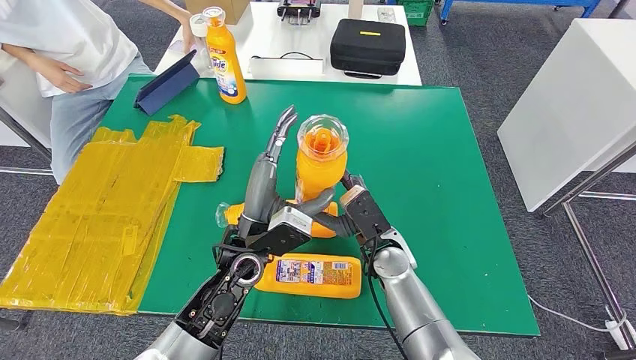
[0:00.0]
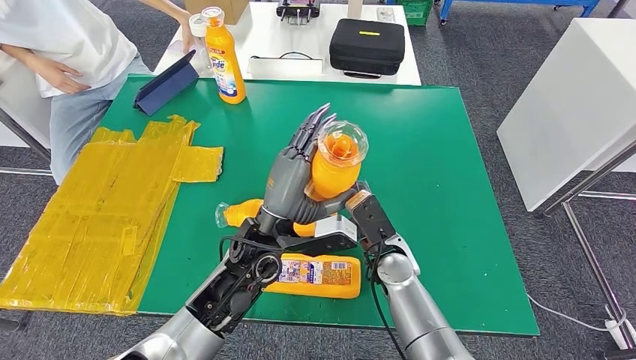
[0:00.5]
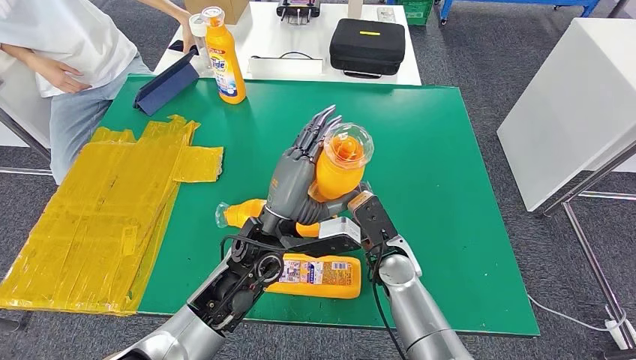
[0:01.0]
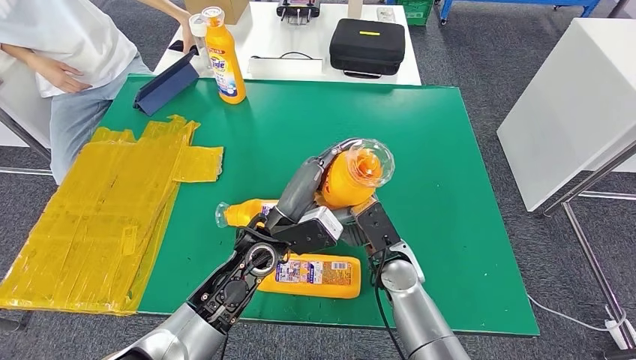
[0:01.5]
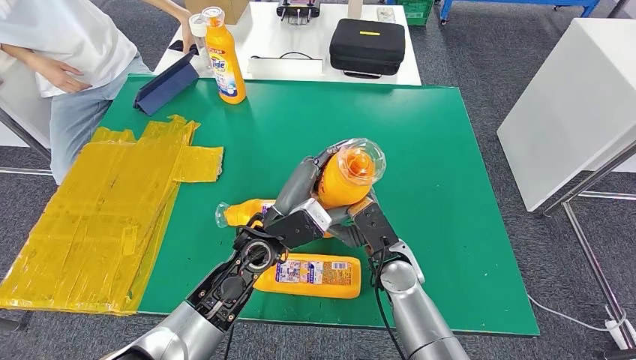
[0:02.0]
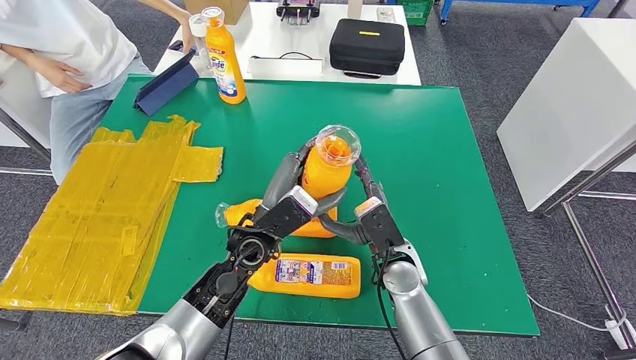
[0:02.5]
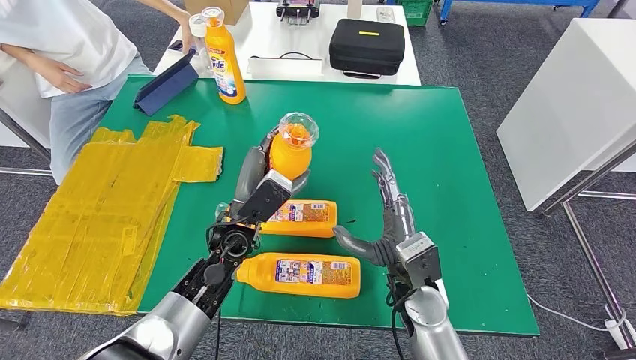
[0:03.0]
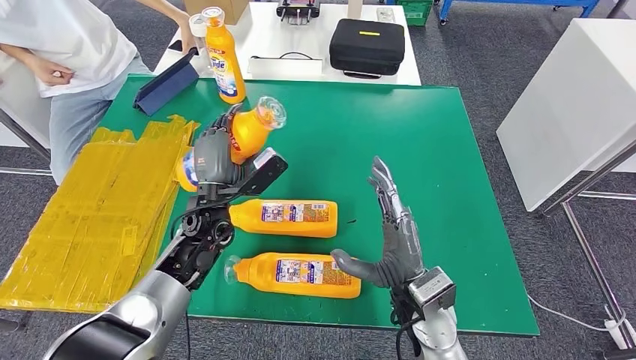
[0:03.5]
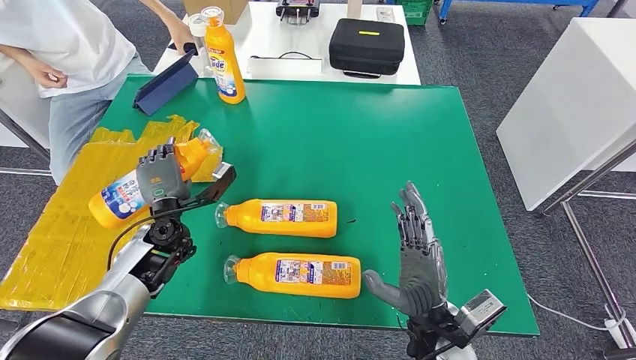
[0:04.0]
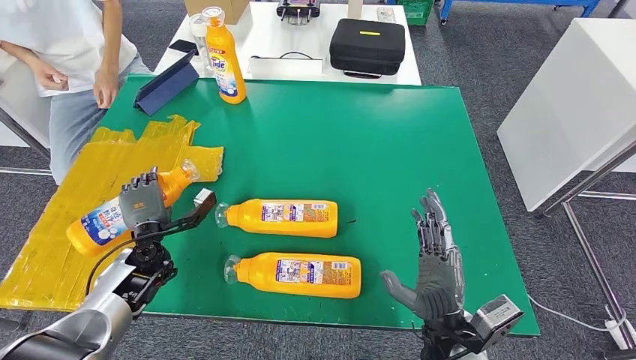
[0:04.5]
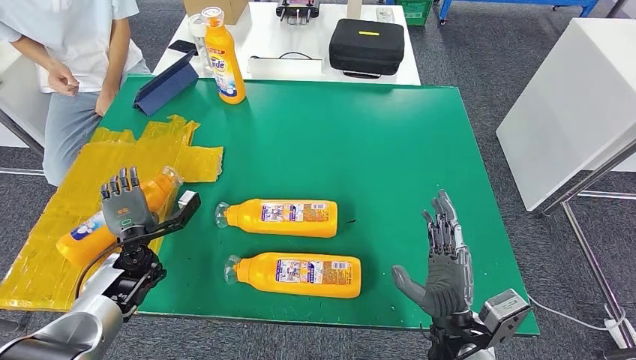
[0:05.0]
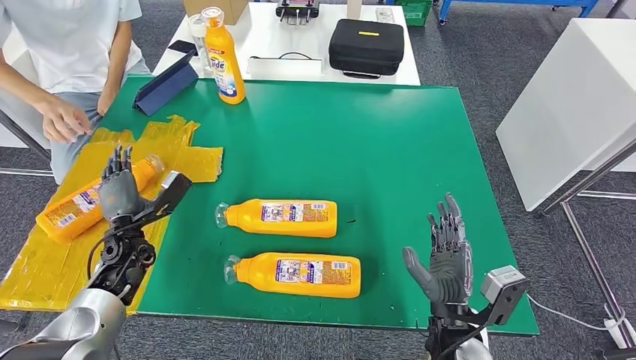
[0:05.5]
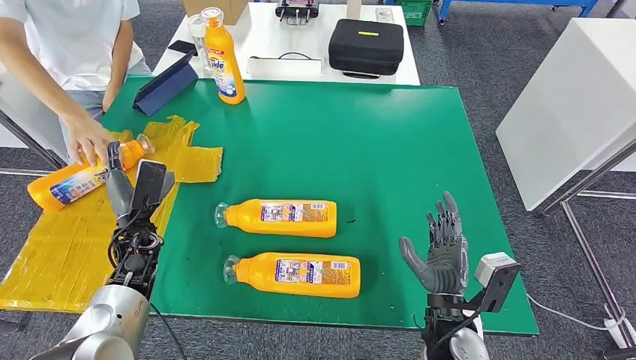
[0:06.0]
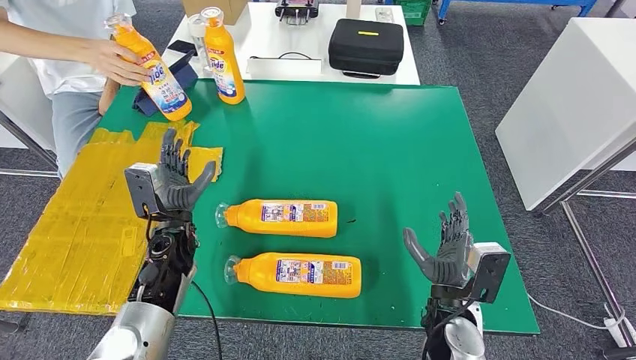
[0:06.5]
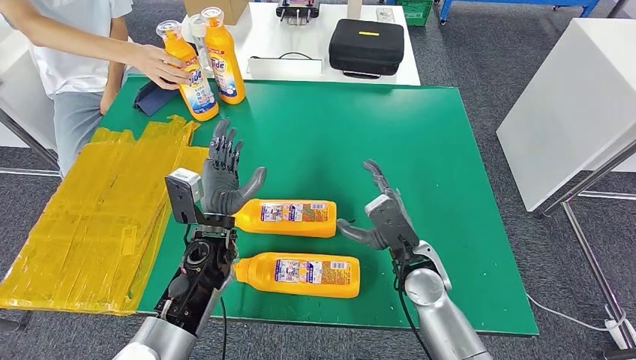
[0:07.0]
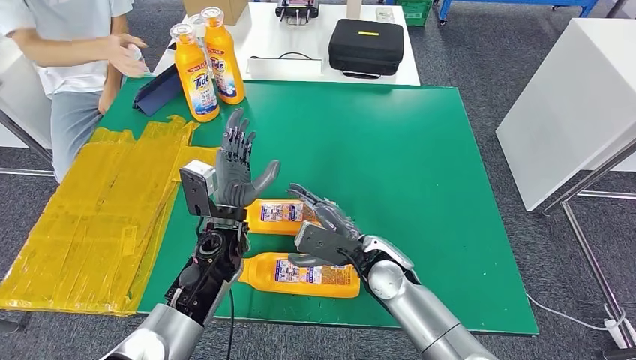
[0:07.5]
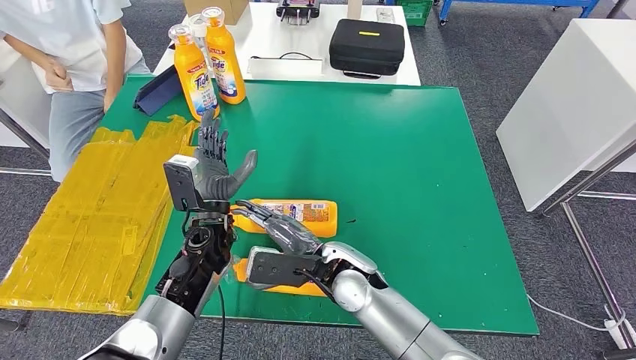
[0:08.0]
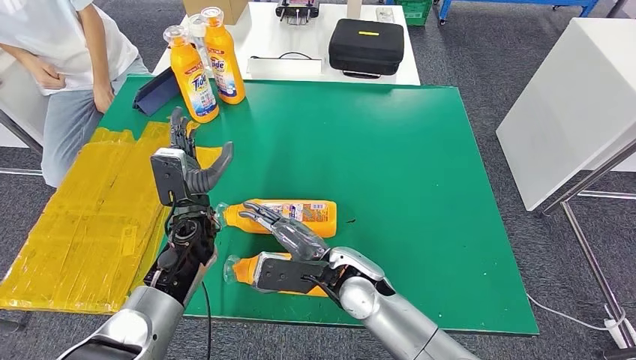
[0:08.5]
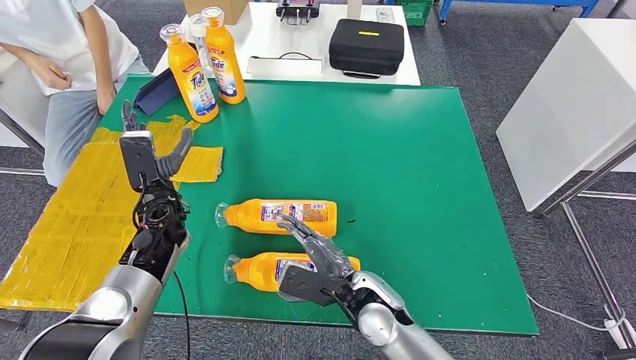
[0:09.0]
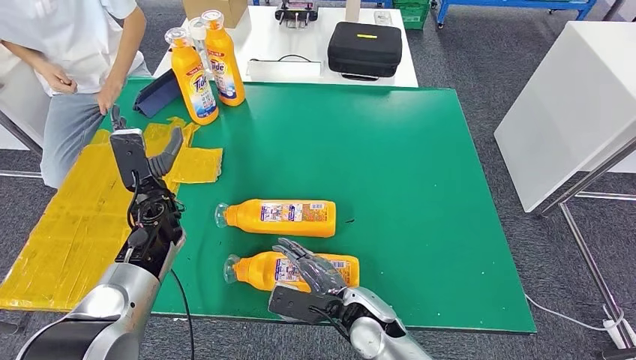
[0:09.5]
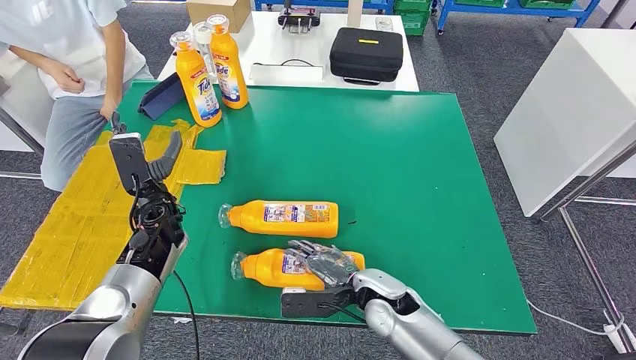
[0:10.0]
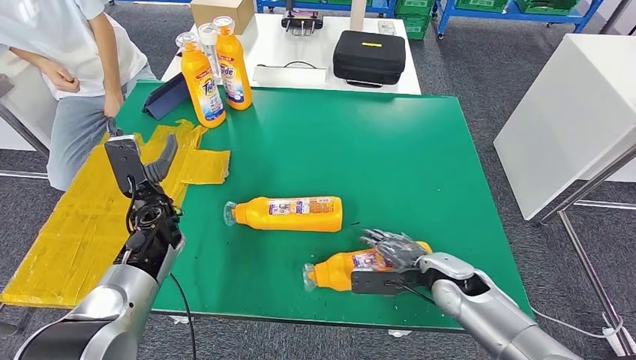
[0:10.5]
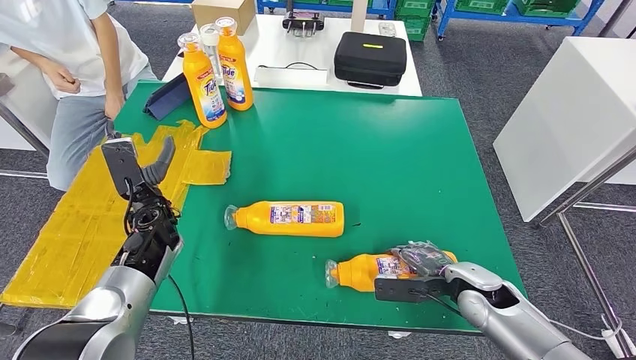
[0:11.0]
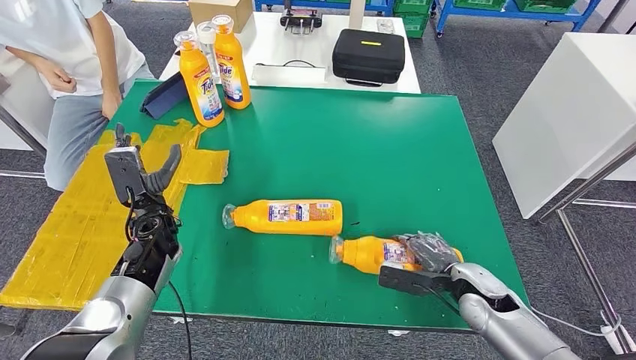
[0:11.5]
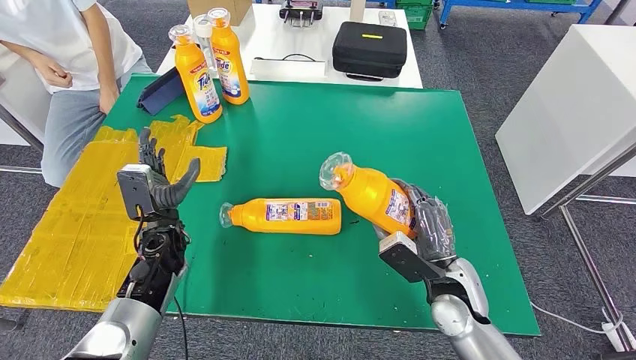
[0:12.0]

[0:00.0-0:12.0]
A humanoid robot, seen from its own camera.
Step, 0:00.0 to 0:05.5: Flip the bottle to face forward.

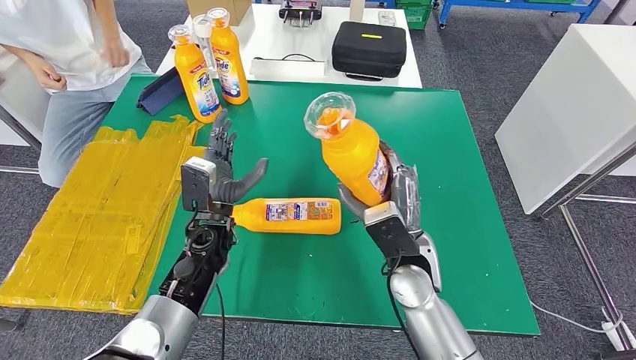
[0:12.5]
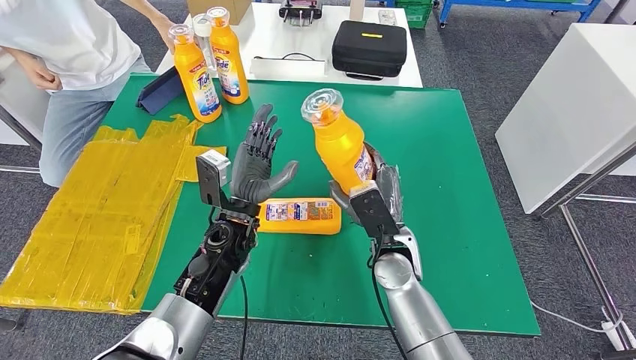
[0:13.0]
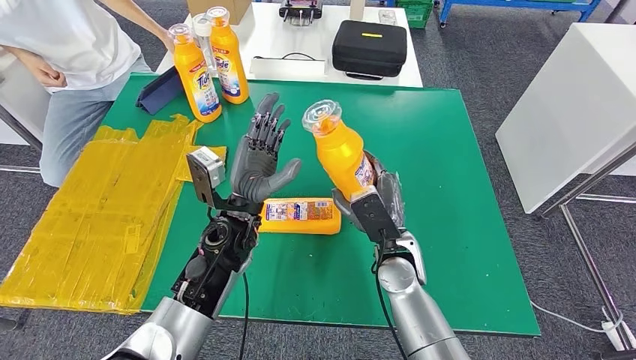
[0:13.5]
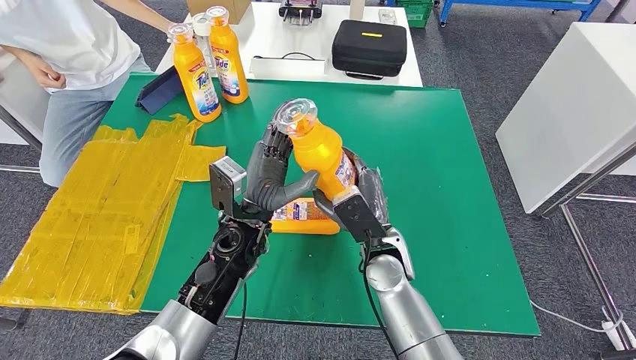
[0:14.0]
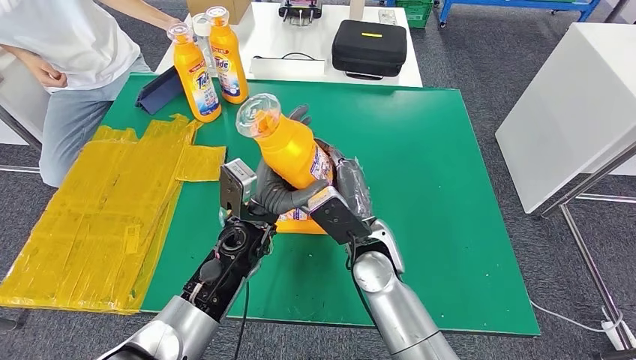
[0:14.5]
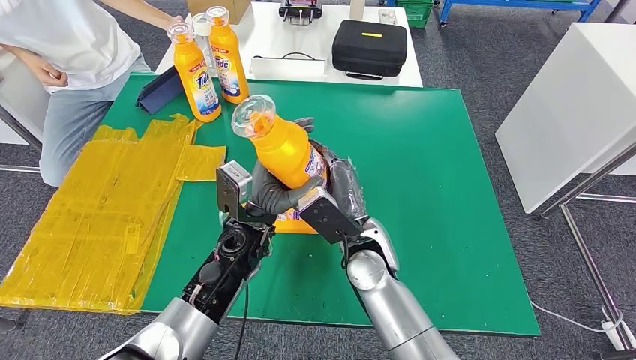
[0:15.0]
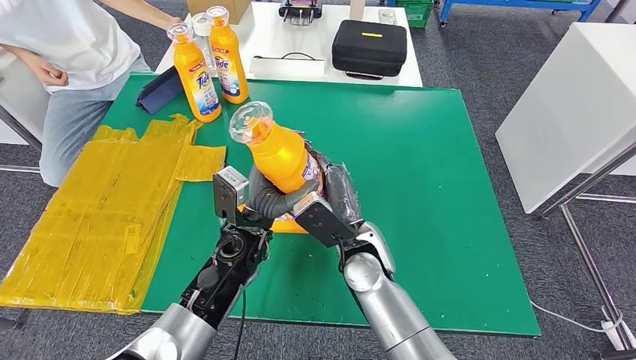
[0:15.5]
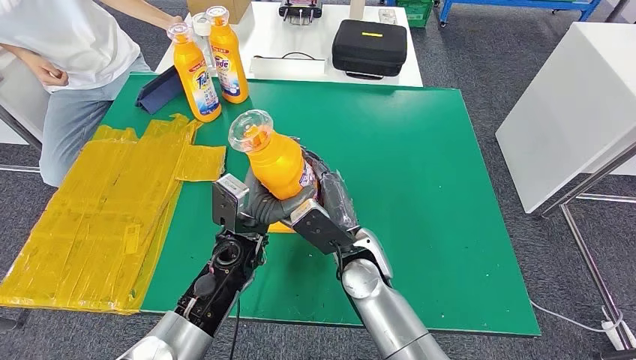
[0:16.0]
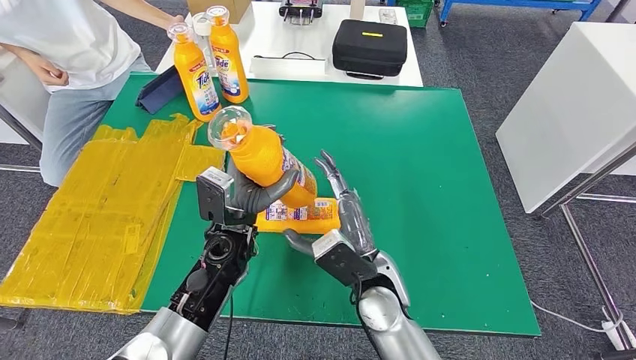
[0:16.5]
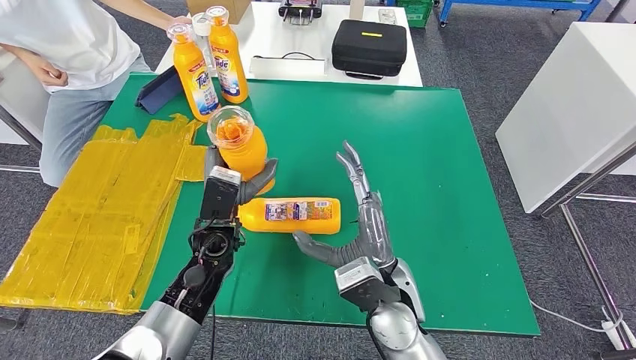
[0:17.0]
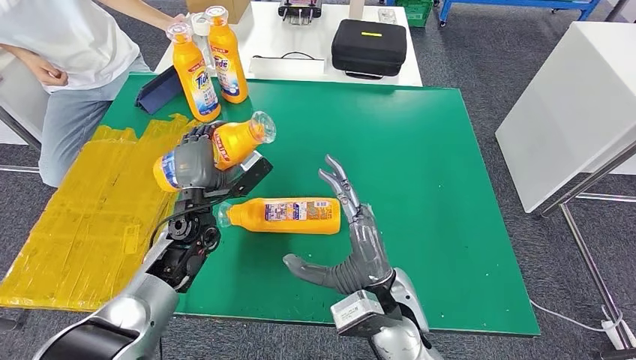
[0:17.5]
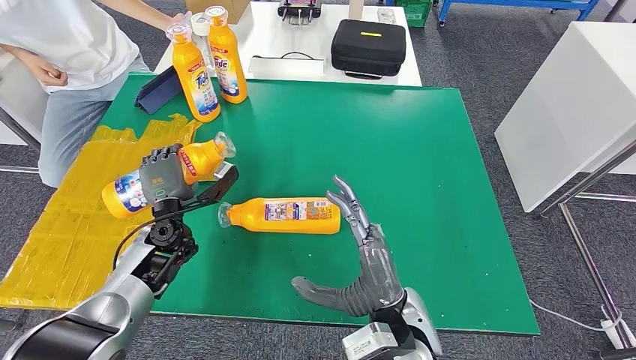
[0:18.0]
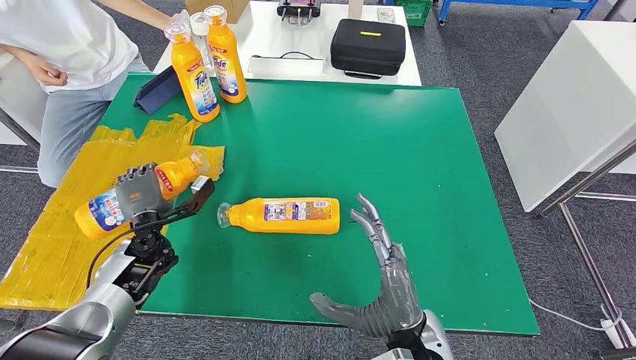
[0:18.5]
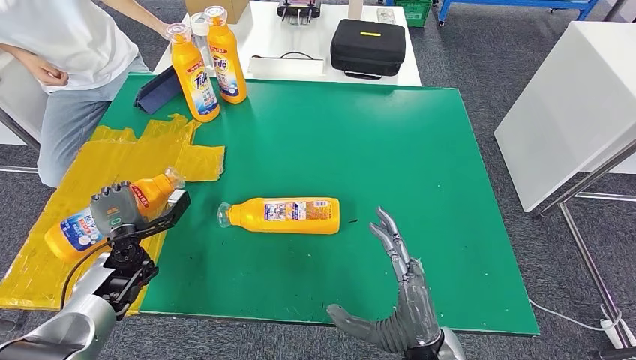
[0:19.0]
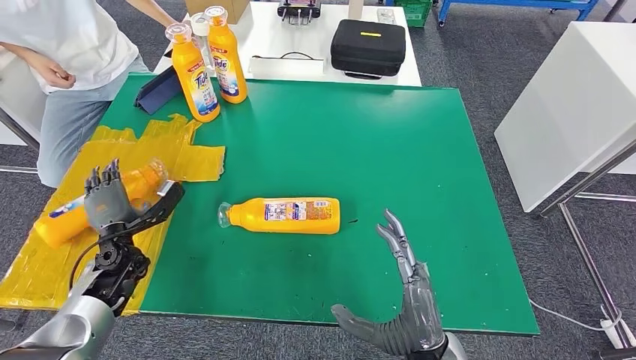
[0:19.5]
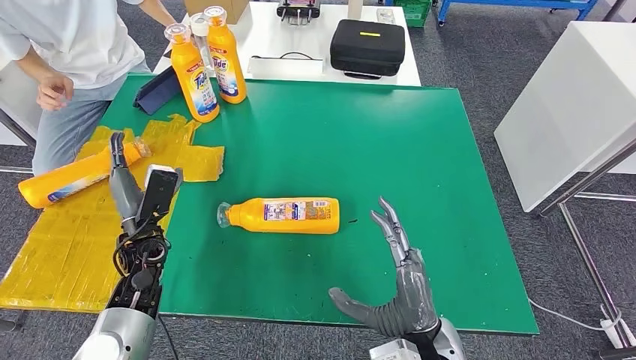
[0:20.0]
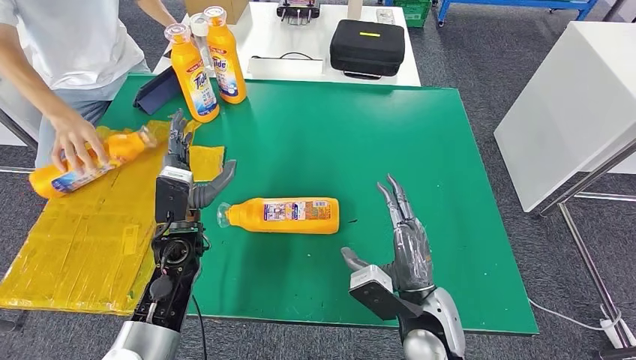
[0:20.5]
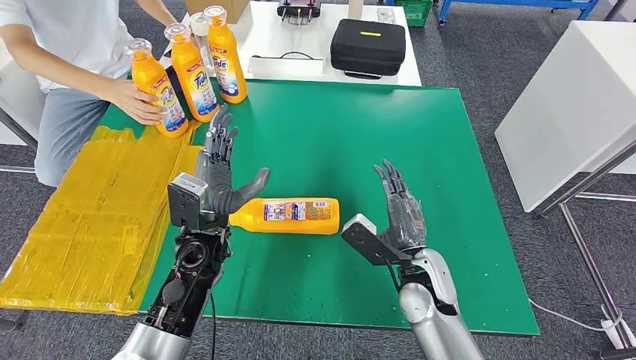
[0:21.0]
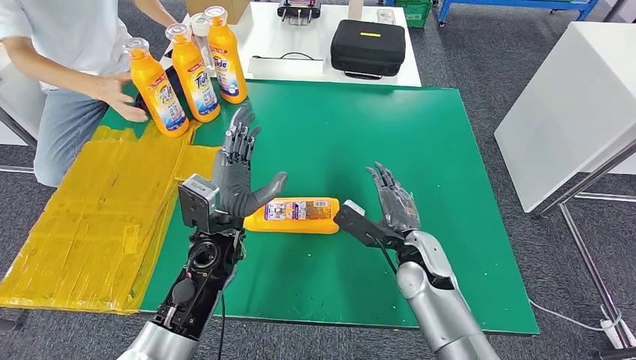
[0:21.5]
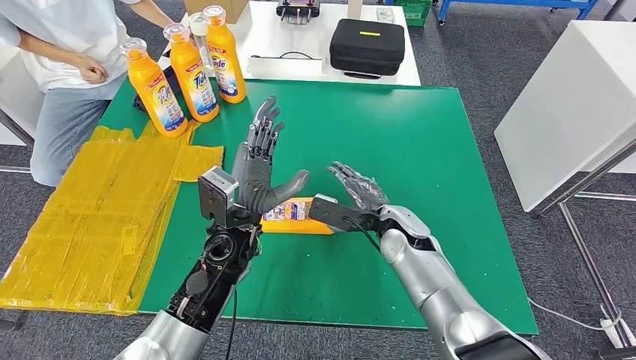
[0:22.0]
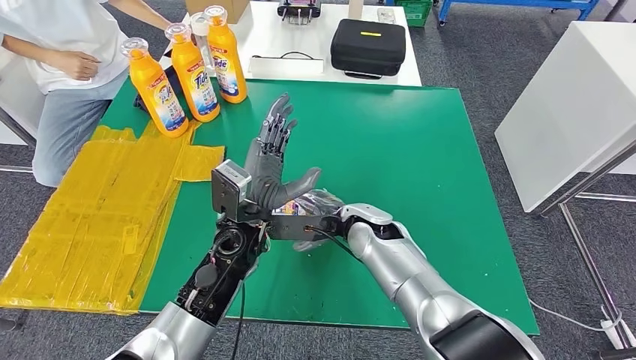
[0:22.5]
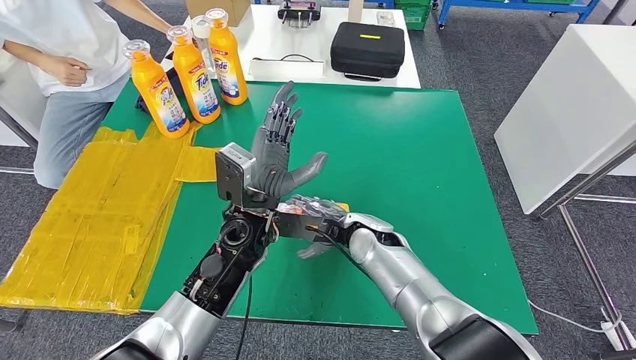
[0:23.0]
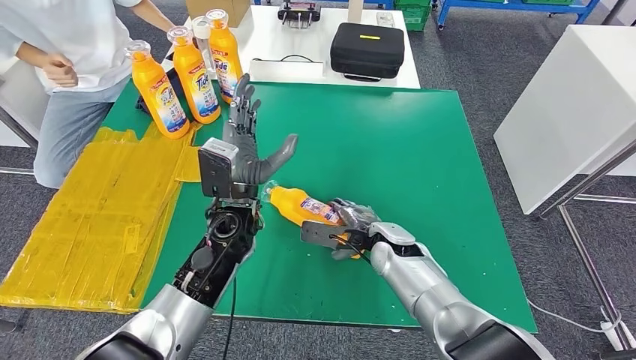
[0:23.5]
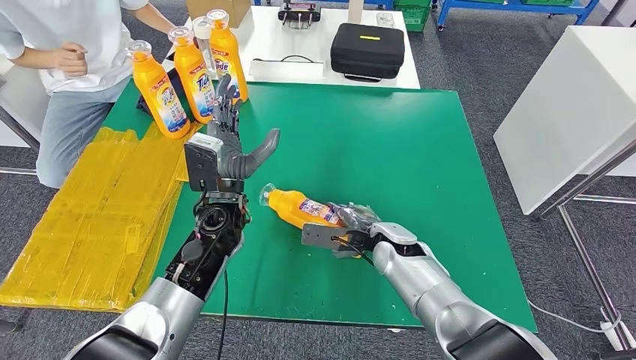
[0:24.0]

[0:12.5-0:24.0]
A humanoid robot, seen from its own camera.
Step, 0:12.5 to 0:19.5: Flip the bottle to face forward.
0:14.5 to 0:16.5: The right hand shifts by about 5 cm.
